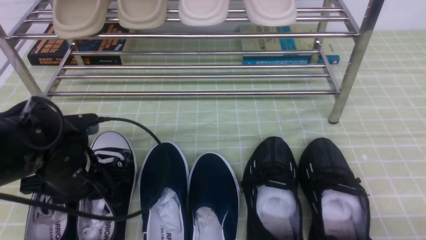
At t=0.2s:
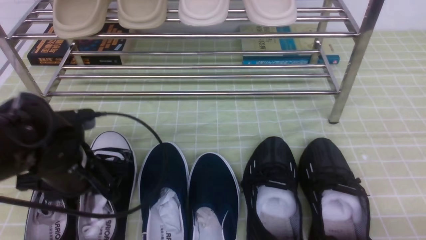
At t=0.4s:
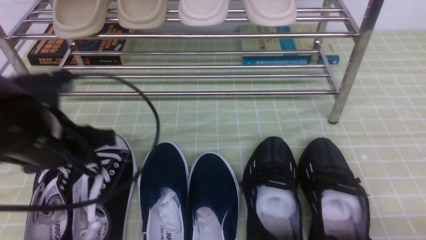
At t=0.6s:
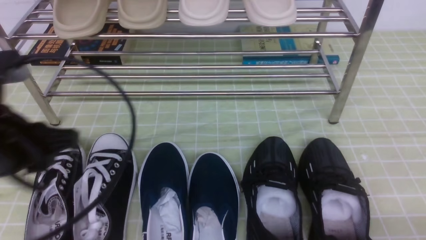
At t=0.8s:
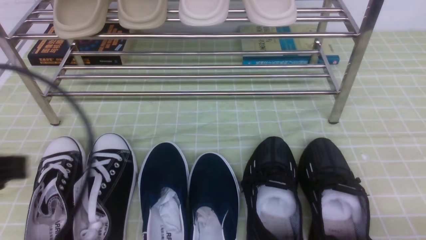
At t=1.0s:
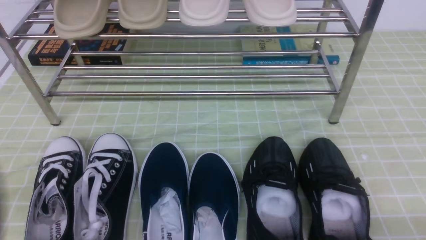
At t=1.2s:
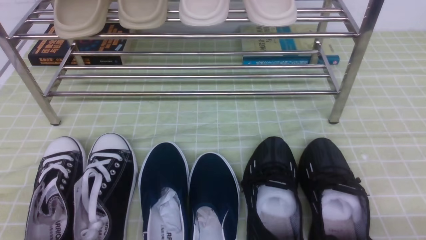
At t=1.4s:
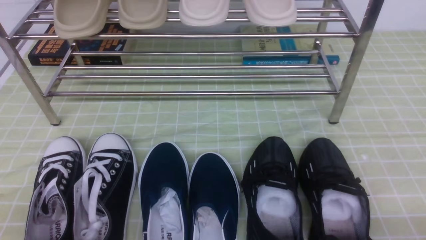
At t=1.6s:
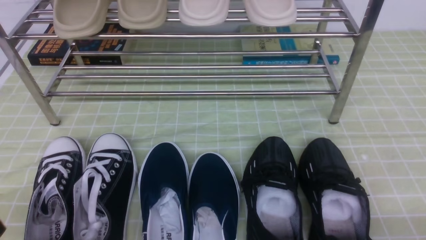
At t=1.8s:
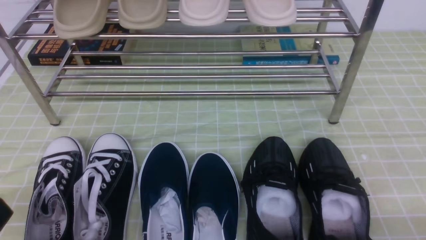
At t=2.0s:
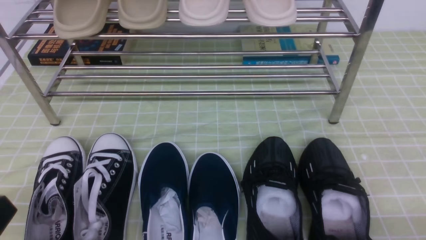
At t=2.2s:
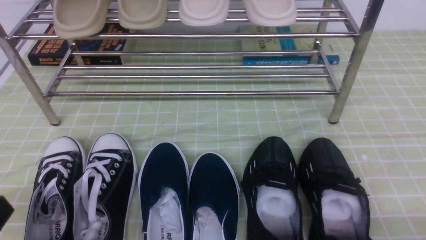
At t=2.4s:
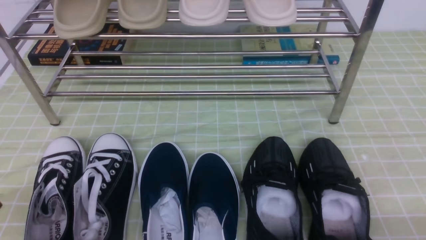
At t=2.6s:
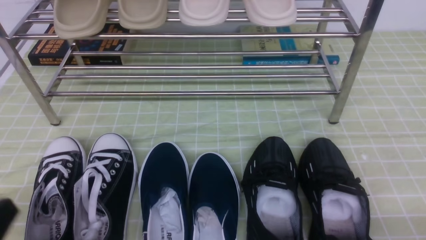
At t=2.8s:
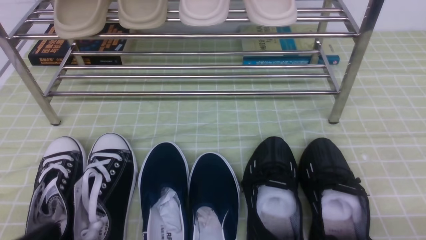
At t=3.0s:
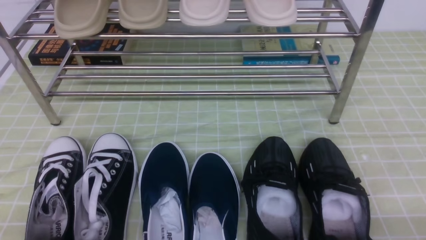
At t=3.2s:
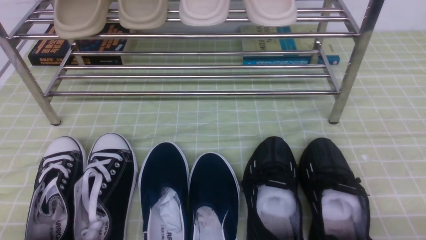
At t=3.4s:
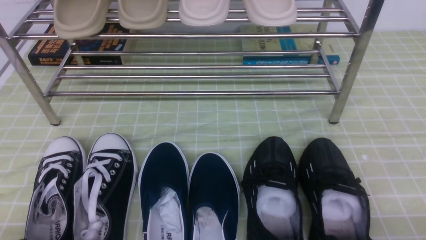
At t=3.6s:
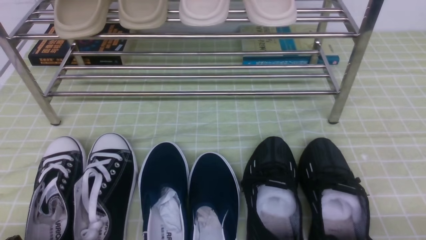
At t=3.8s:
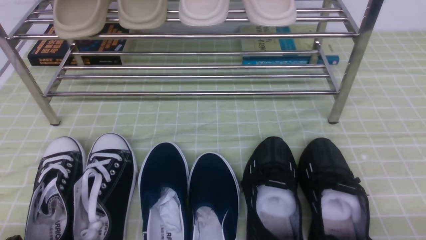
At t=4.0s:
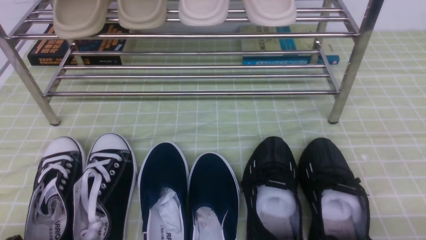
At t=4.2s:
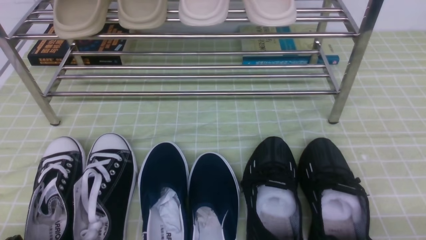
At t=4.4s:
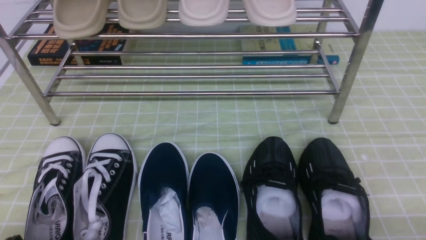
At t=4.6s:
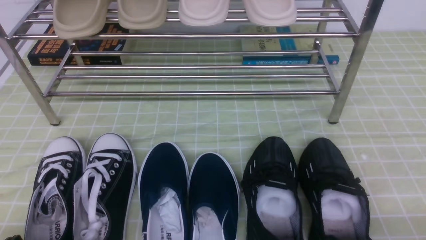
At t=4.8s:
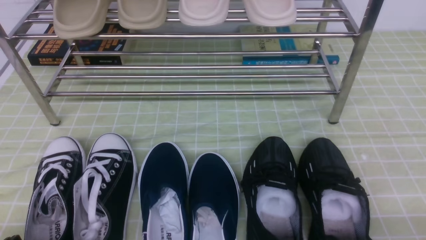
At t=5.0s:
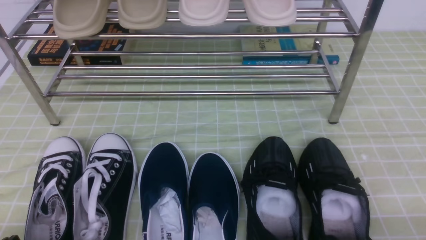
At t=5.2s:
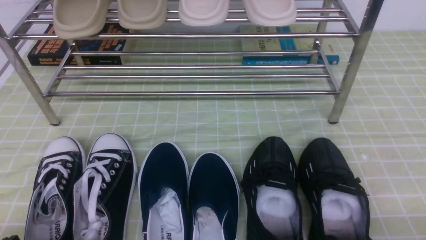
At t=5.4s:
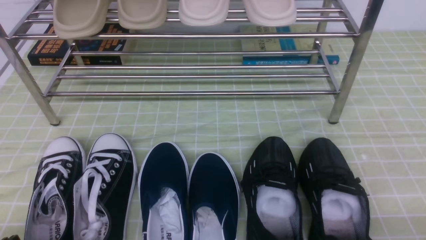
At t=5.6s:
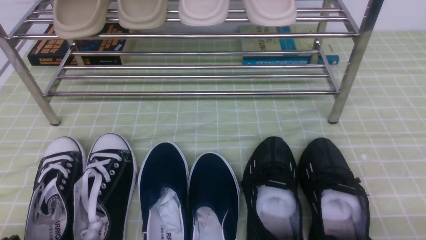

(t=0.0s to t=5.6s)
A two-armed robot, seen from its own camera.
t=0.0s - t=1.4s: The left gripper travels backward and upward by approximately 25 cm, and closes up.
t=1.4s - t=2.8s: The left gripper heads downward, covering about 10 cm.
t=4.2s - t=5.6s: Both grippers stay put.

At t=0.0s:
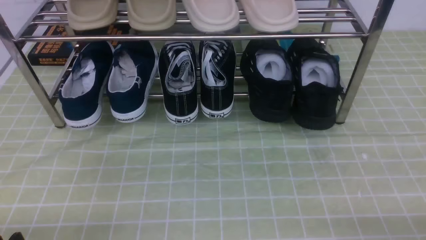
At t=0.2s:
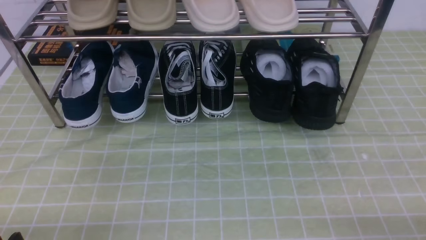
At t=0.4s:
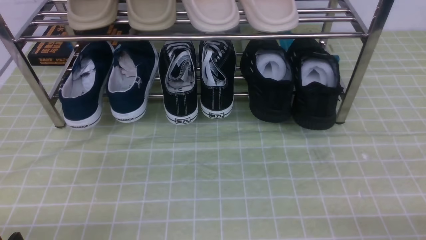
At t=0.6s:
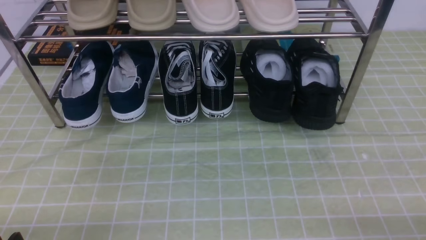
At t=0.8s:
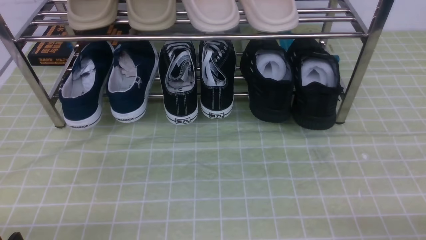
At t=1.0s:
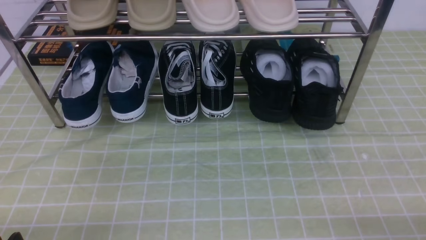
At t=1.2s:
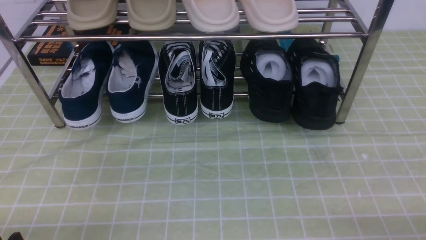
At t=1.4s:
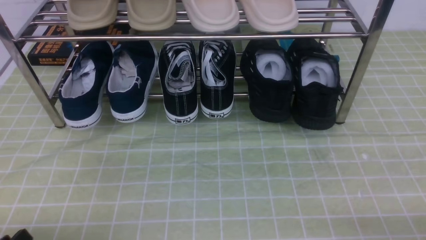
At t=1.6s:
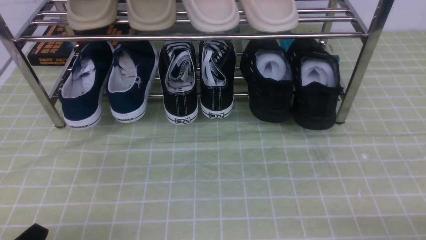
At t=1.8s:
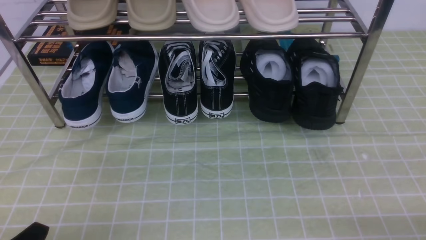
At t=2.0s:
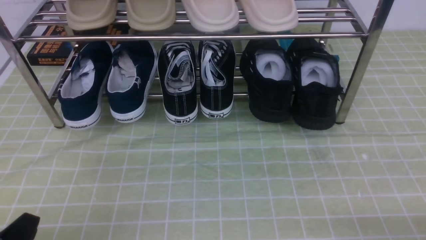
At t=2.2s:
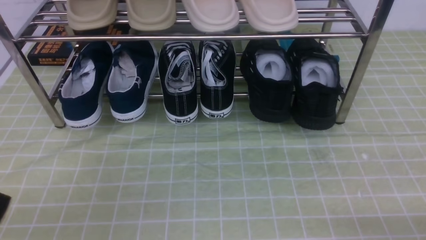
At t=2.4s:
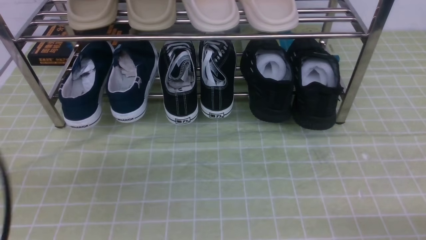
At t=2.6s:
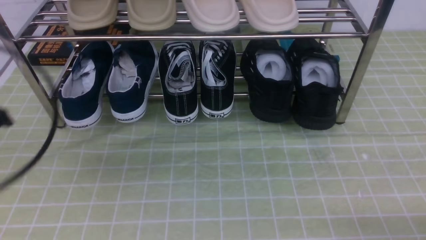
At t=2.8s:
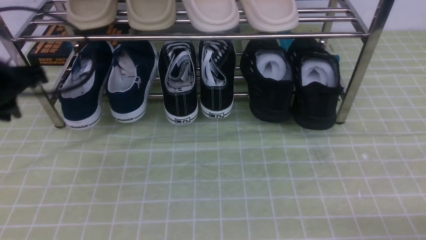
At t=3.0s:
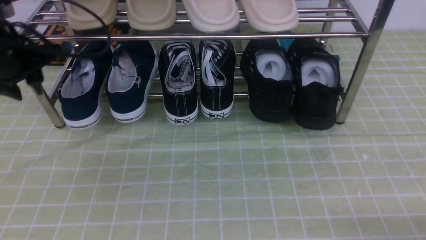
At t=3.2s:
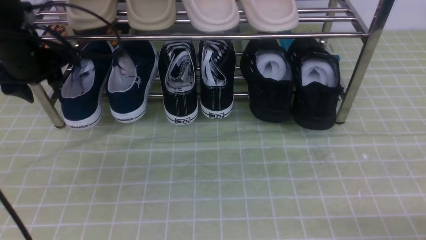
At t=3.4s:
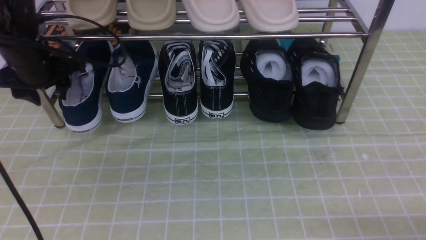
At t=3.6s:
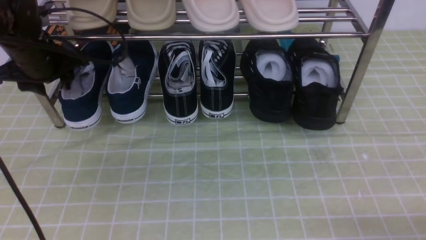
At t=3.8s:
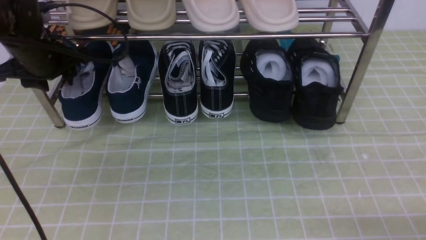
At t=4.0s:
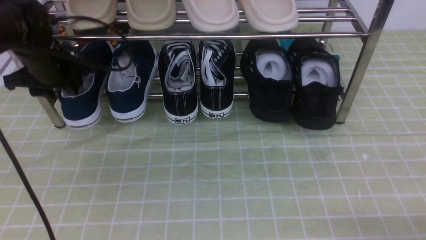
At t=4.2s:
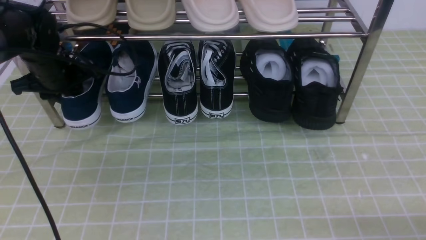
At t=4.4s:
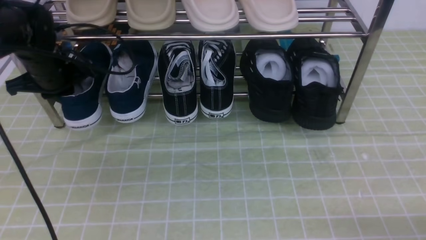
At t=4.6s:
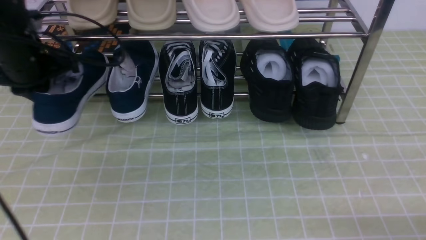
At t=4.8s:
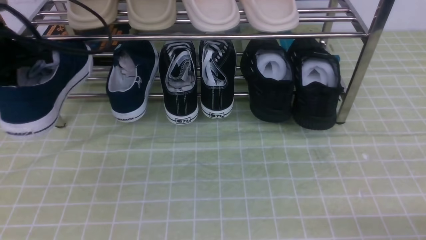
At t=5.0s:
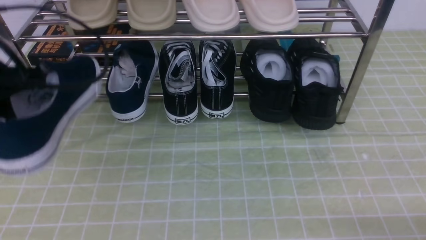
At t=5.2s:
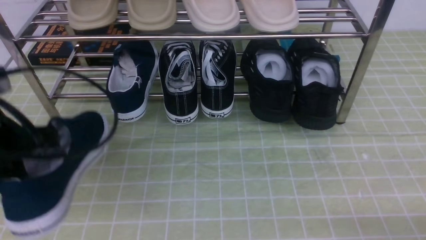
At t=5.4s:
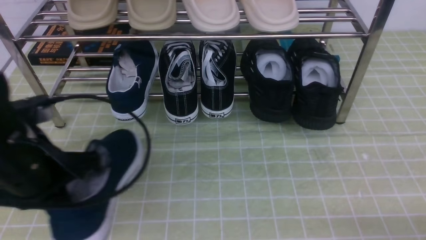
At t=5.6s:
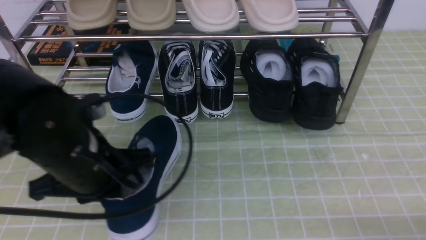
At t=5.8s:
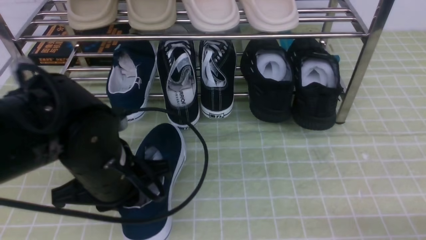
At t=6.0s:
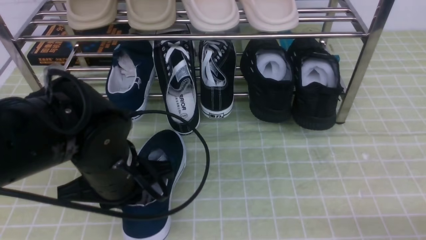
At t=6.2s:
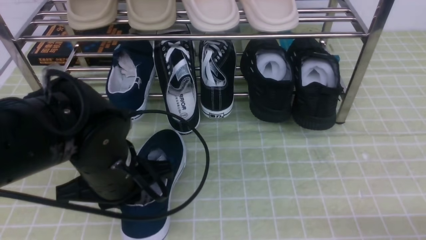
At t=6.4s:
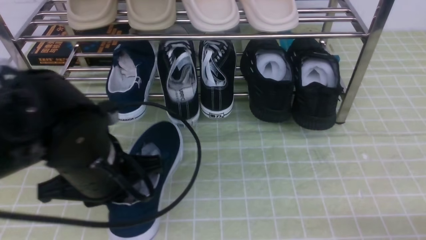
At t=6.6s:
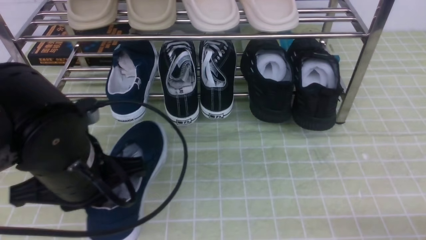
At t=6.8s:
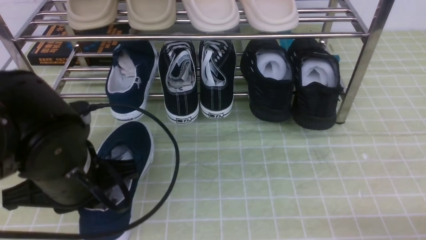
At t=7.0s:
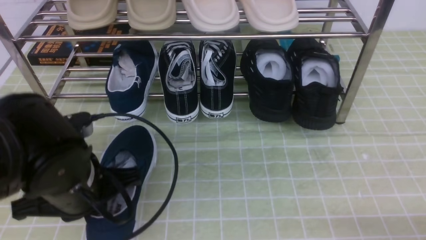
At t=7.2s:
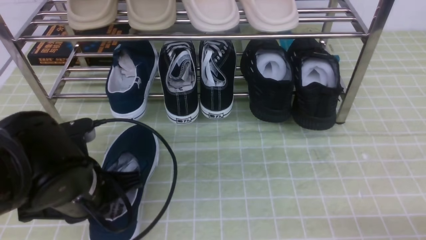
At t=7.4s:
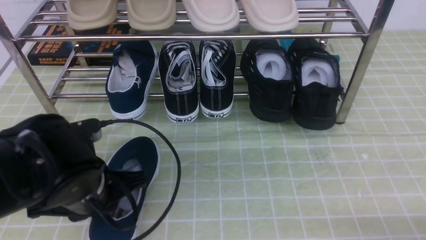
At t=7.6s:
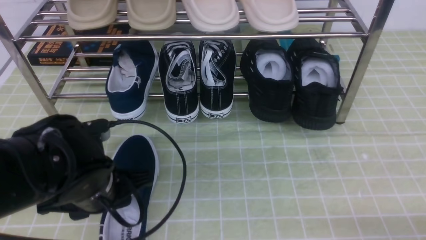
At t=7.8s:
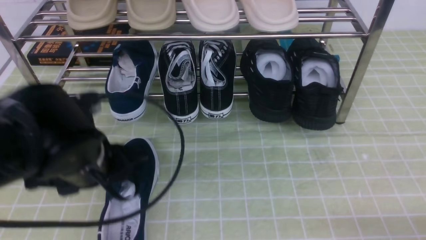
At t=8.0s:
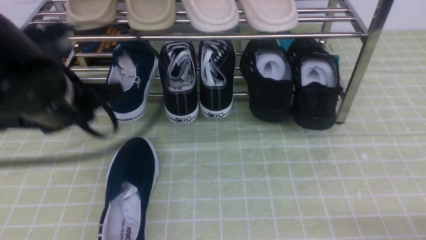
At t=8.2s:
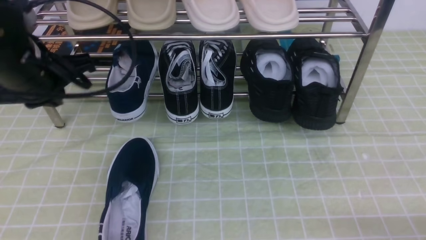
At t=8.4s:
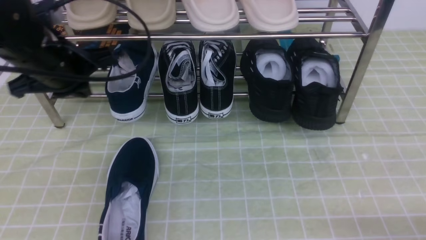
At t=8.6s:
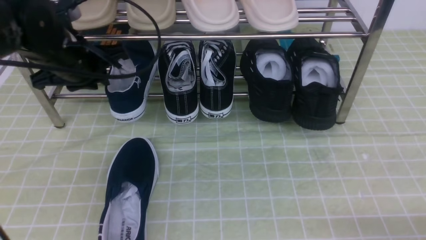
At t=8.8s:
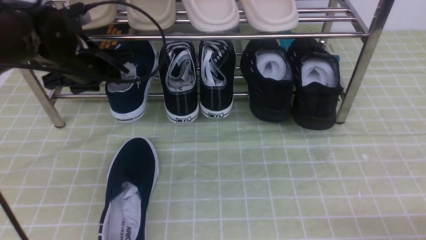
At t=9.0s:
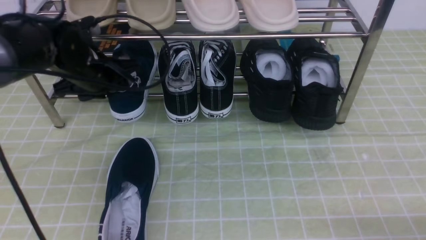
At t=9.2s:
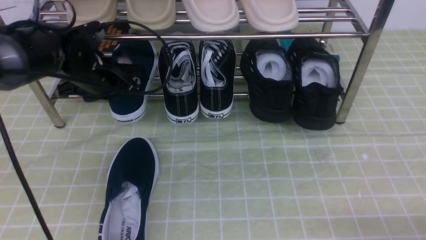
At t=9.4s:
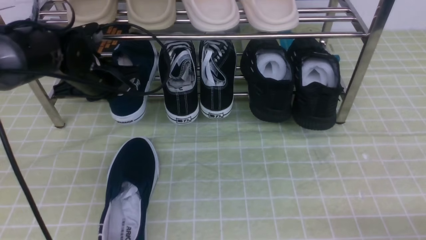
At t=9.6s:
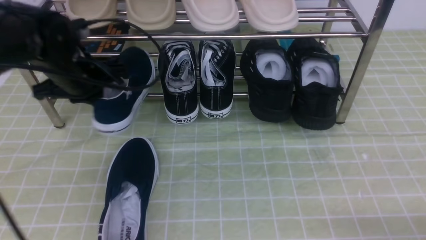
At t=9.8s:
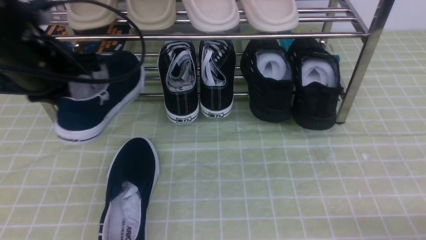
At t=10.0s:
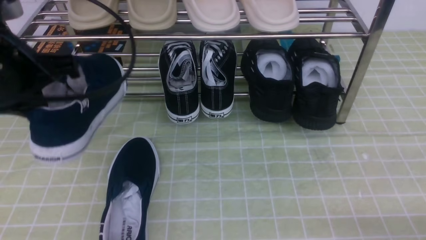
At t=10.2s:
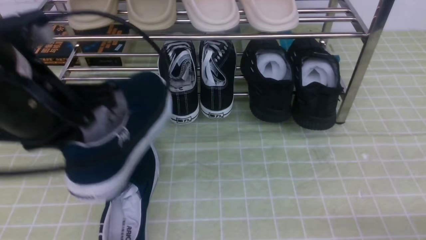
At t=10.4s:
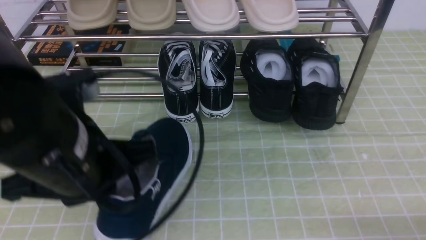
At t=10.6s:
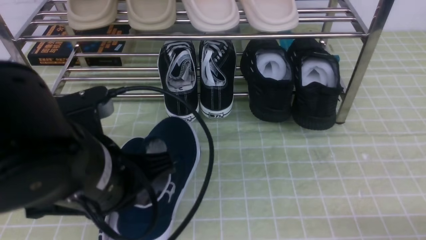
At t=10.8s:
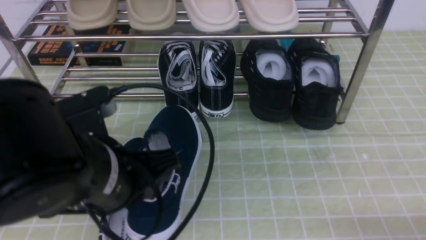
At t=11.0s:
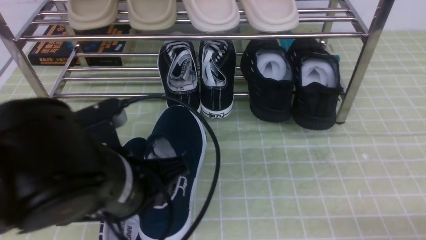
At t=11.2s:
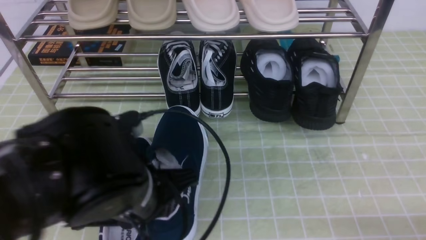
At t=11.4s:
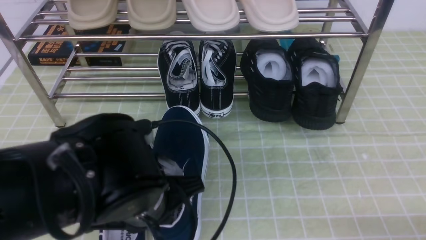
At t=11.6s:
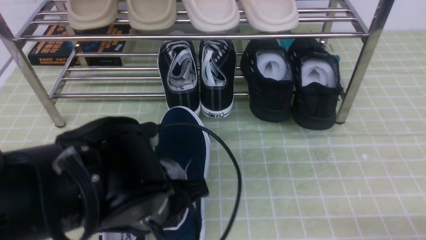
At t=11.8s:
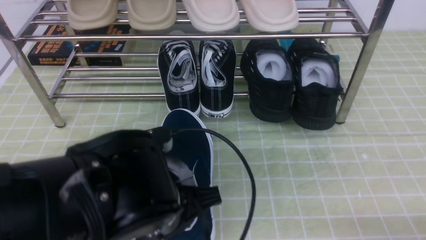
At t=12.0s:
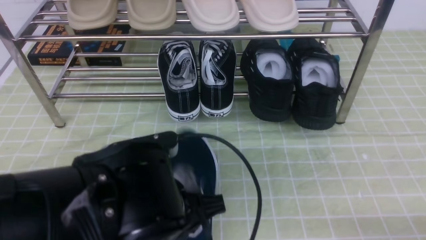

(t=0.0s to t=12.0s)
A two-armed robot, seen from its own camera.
Step, t=0.0s - t=4.4s: use the left arm to clamp a shoe on the left side of the shoe rack.
Step, t=4.6s - t=7.8s: Use your left arm to remove the clamped shoe from the shoe rack and put it down.
Step, t=8.0s - t=9.4s: use the left arm to clamp a shoe on the left side of the shoe rack.
t=1.6s - t=3.0s: The left gripper goes about 30 cm forward and upward, and closes, then opens again.
t=3.0s - t=4.4s: The left gripper is displaced forward and downward by approximately 10 cm, and closes.
t=4.4s - t=6.0s: The left gripper goes some 25 cm backward and to the right.
t=6.0s - t=7.6s: The left gripper opens its fingers.
t=7.6s - t=9.0s: The left gripper travels forward by some 20 cm, and closes and opens again.
t=9.0s - t=10.4s: The left gripper shifts roughly 20 cm backward, and closes.
t=10.4s - t=12.0s: The left gripper is displaced downward and to the right by some 10 cm.
